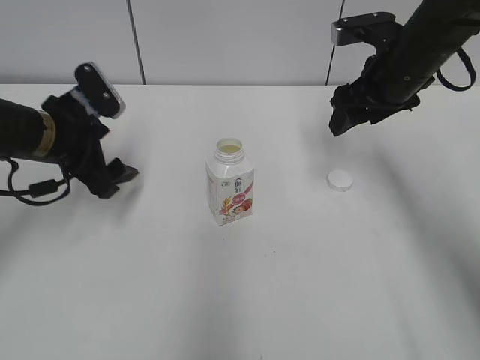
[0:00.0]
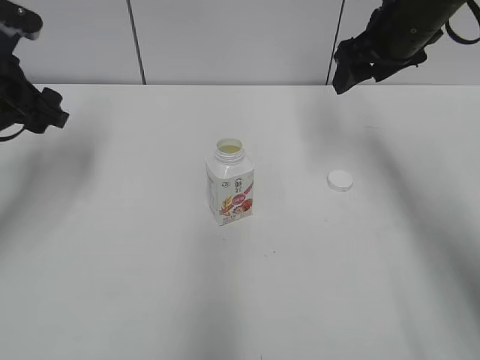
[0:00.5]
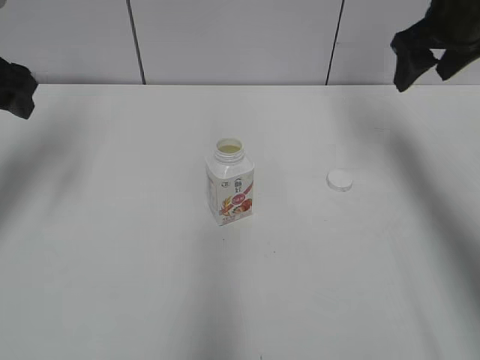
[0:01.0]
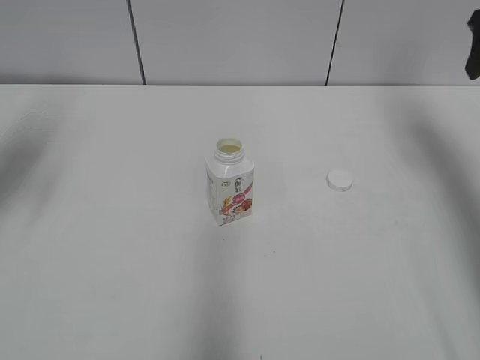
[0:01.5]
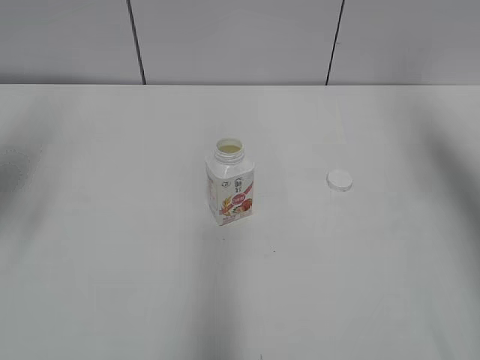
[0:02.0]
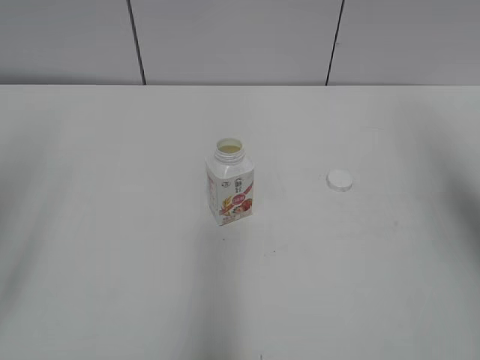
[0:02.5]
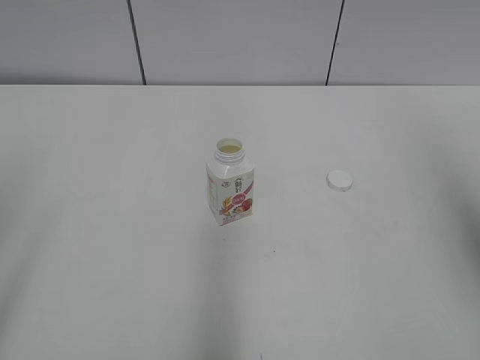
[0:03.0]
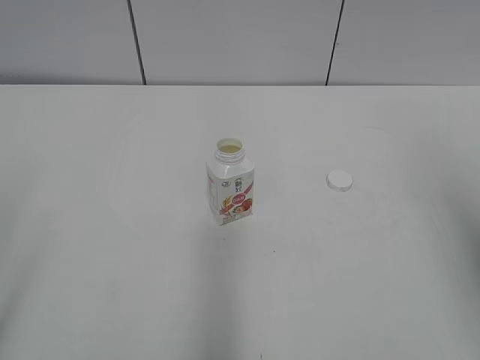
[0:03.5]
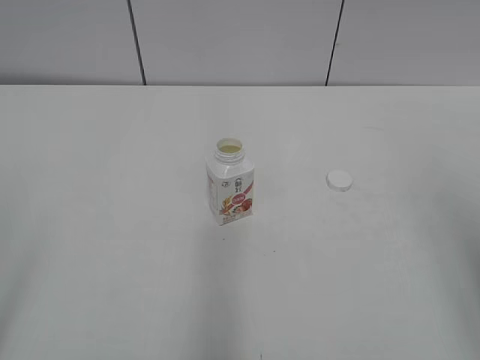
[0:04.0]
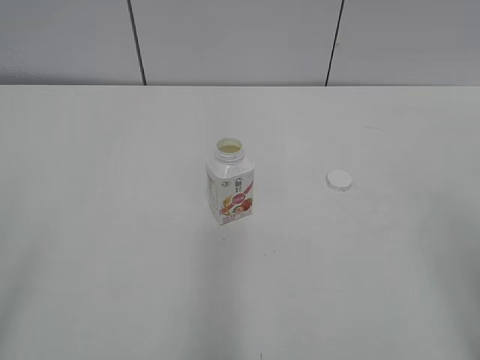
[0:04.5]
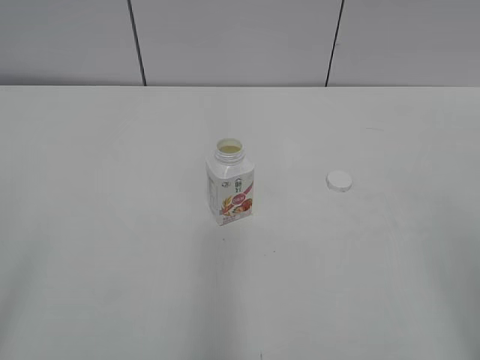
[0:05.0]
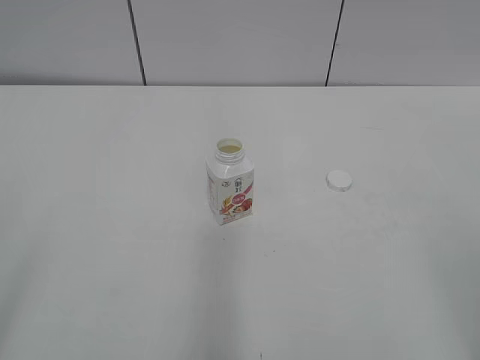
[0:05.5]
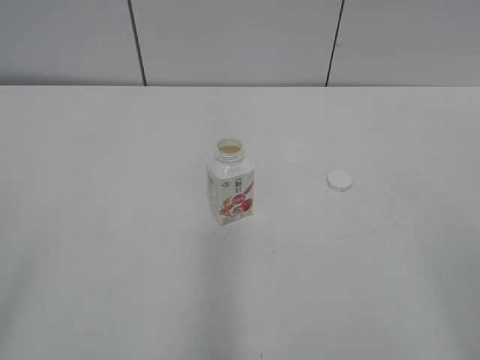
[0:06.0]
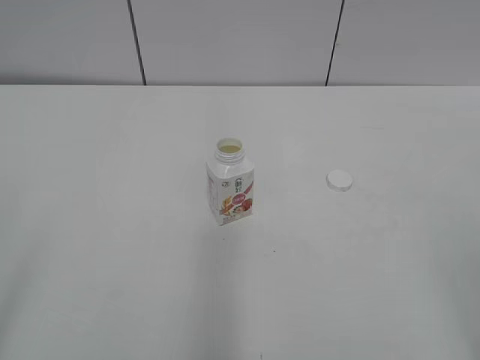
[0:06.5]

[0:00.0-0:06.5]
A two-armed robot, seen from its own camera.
0:00.0 to 0:02.0: The right gripper is displaced upward, to the right and backward by some 20 cm, while the left gripper is displaced upward and to the left by approximately 20 cm.
0:02.0 to 0:04.5: The two grippers go roughly 30 cm backward.

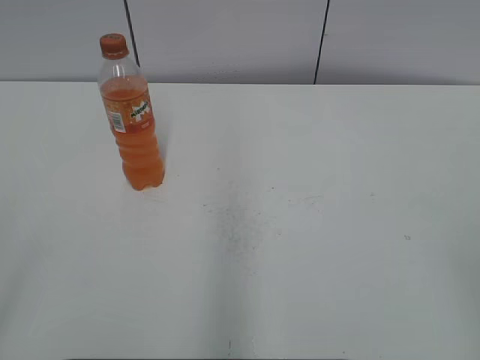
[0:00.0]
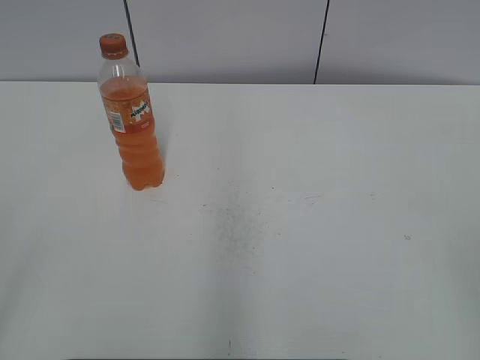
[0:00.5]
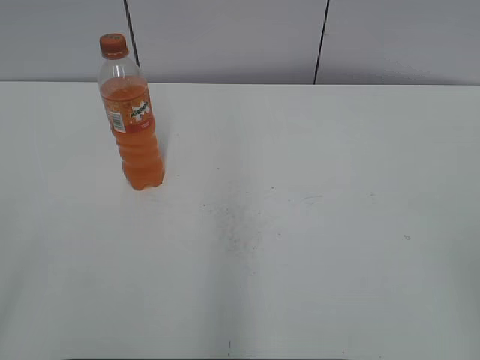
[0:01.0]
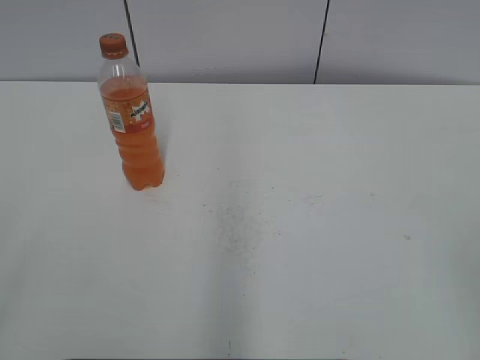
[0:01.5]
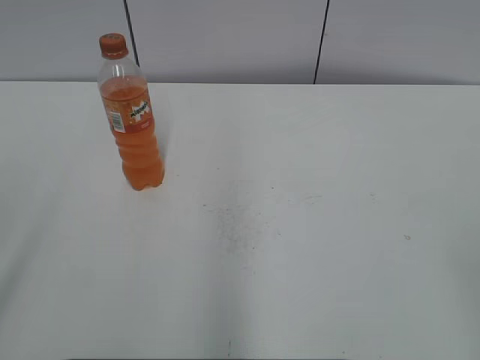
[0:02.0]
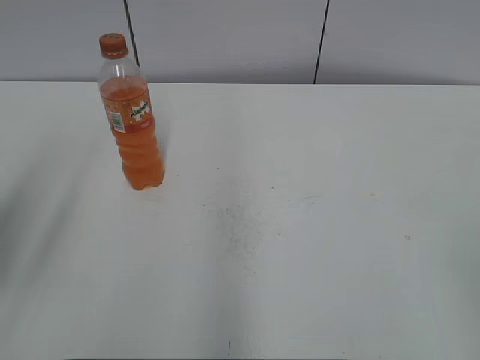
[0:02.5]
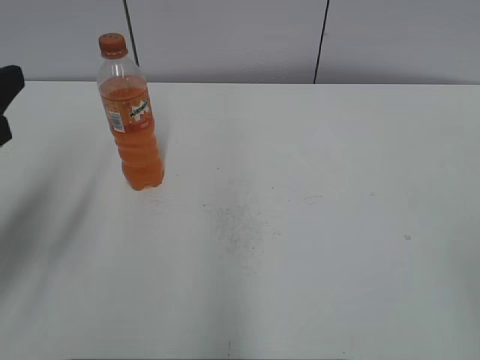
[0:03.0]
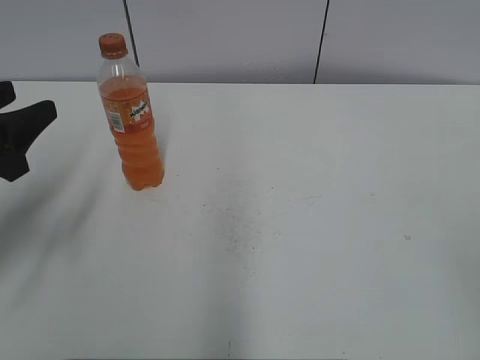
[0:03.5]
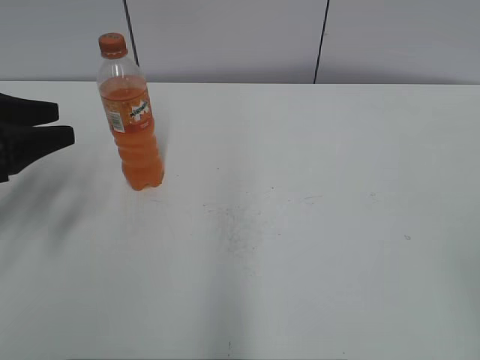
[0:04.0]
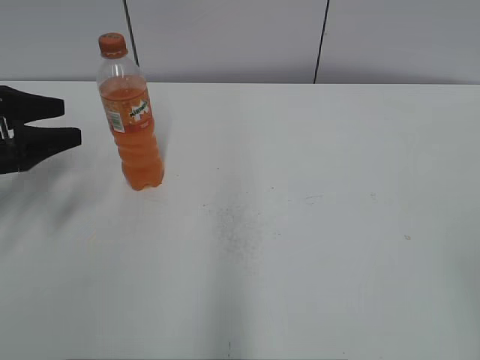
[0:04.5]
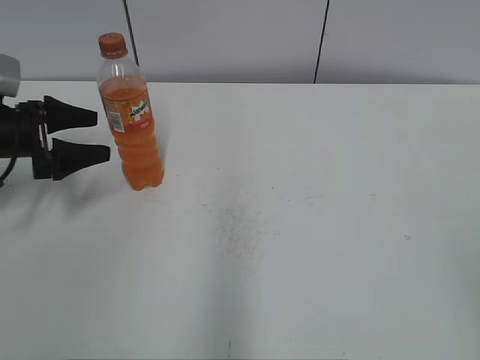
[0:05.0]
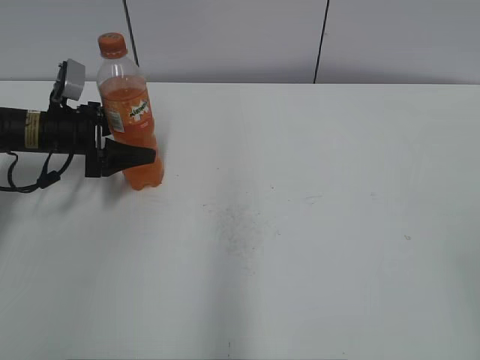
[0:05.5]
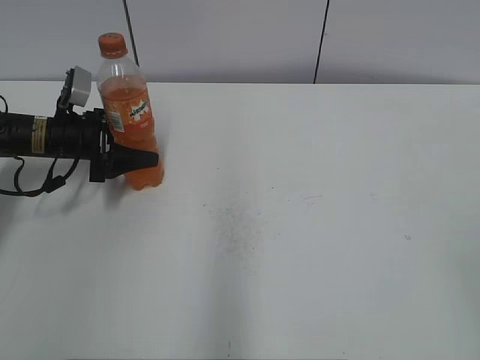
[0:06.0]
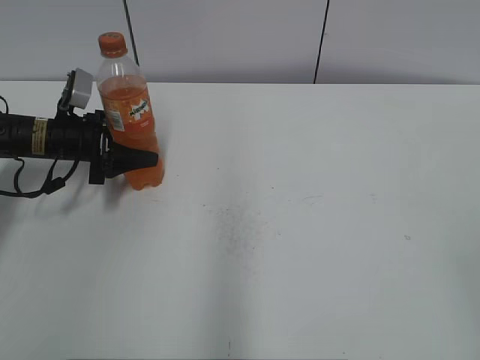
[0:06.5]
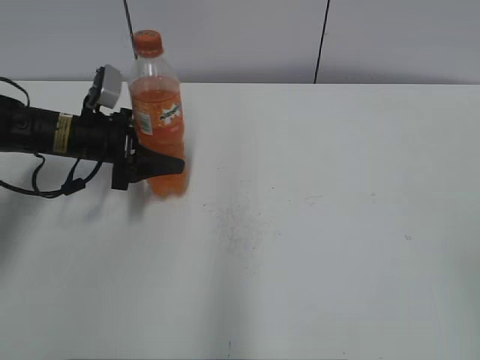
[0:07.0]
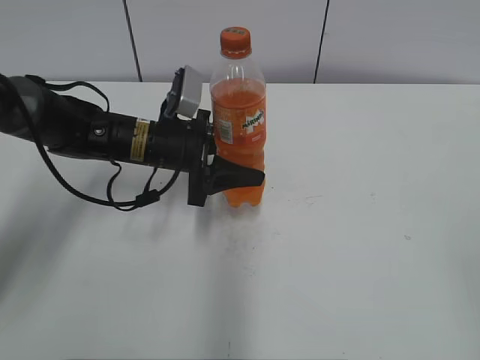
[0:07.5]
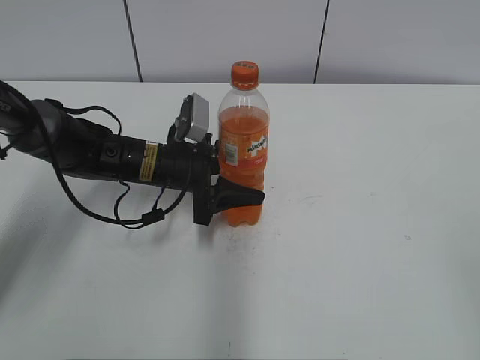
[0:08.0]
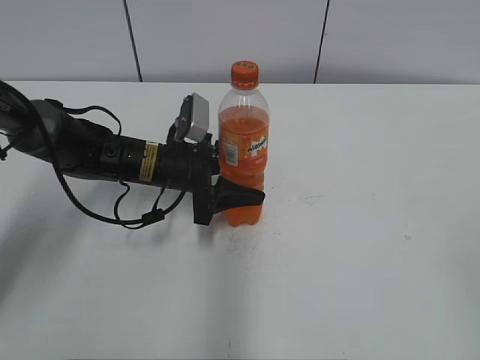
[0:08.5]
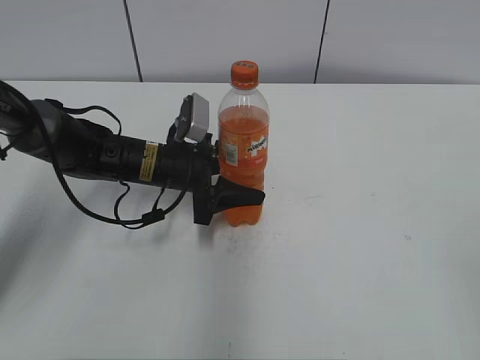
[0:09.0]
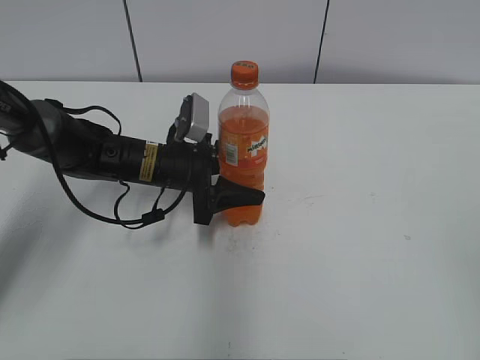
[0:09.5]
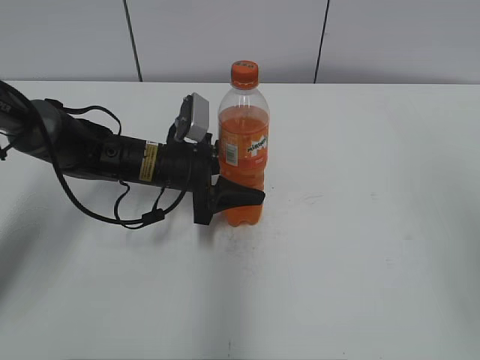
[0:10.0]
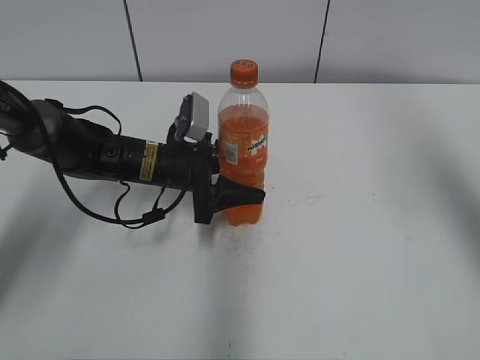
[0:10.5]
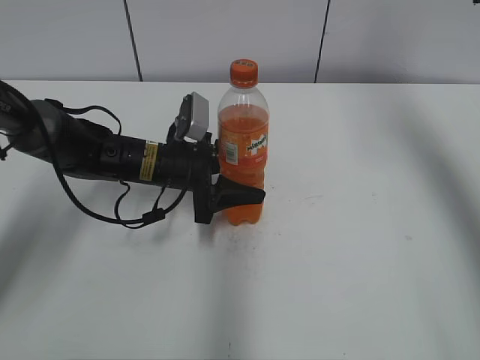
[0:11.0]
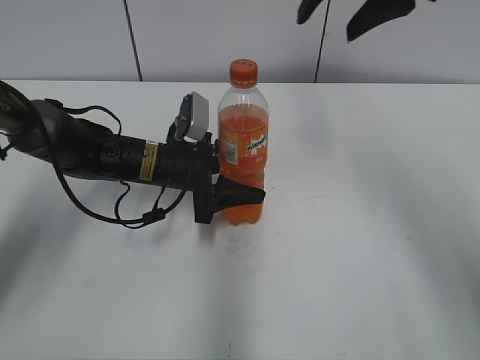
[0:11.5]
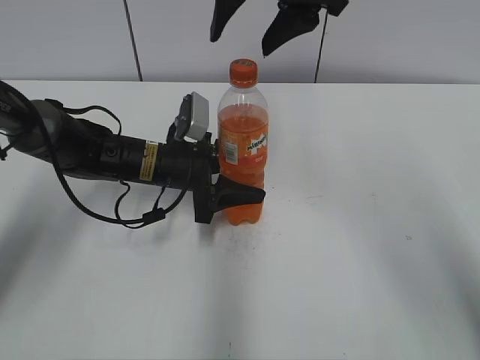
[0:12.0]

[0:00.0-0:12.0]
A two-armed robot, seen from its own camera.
Step, 0:00.0 to 0:06.0: Grab the Mirinda with the left hand.
Step, 0:06.5 to 0:08.0: Move the Mirinda from left to right.
0:02.0 to 0:04.0: The left gripper travels forward and downward by approximately 30 cm.
0:04.0 to 0:06.0: The left gripper moves forward, downward and to the right, roughly 15 cm, and opens, then closes once more.
0:06.0 to 0:08.0: The left gripper shifts roughly 15 cm to the right, and closes its fingers.
0:10.0 to 0:12.0: The right gripper shifts approximately 35 cm forward and to the left.

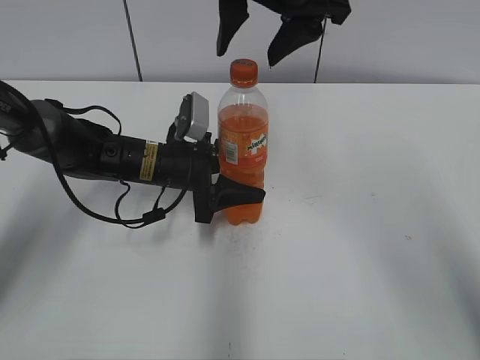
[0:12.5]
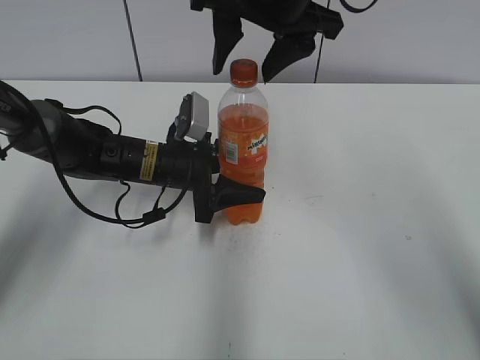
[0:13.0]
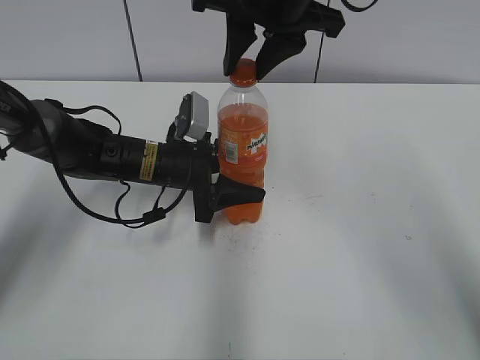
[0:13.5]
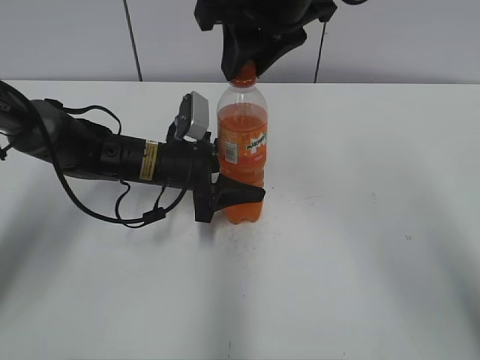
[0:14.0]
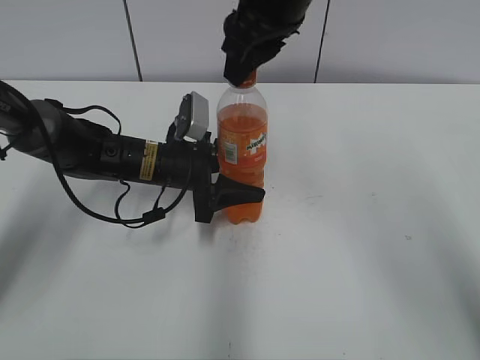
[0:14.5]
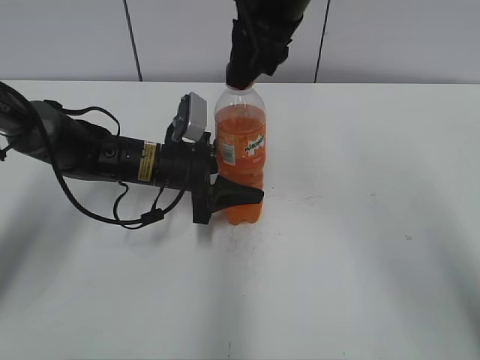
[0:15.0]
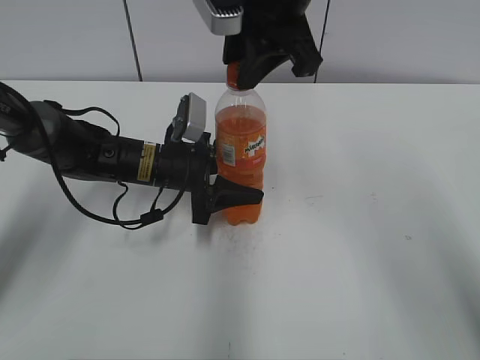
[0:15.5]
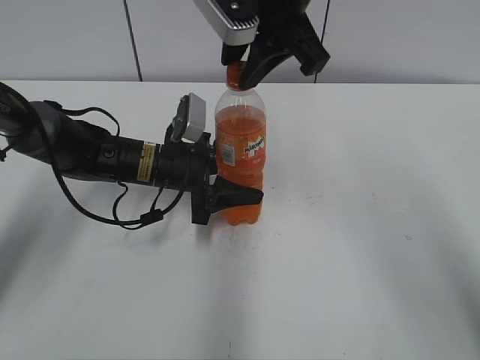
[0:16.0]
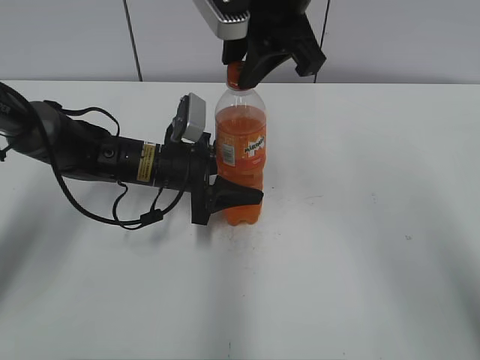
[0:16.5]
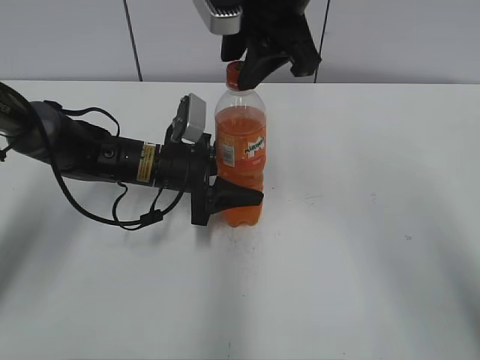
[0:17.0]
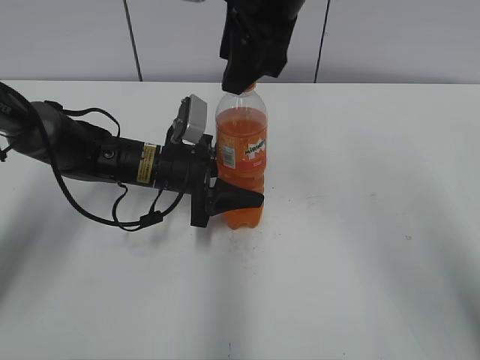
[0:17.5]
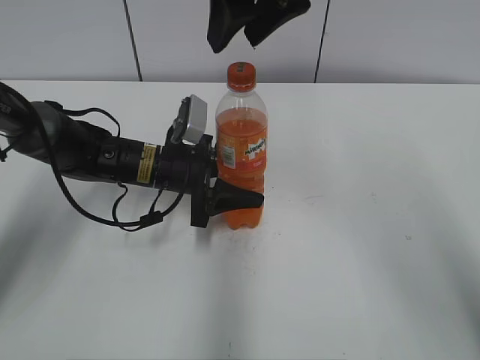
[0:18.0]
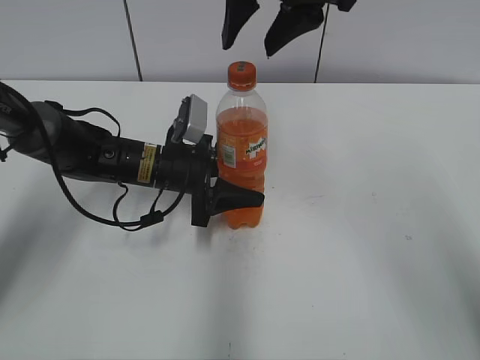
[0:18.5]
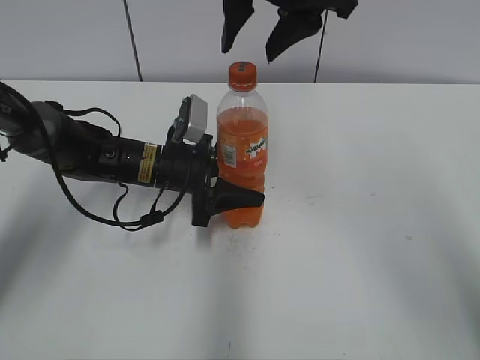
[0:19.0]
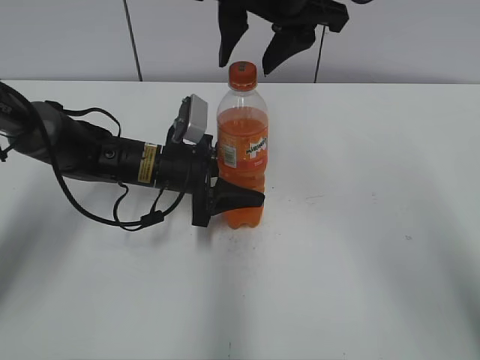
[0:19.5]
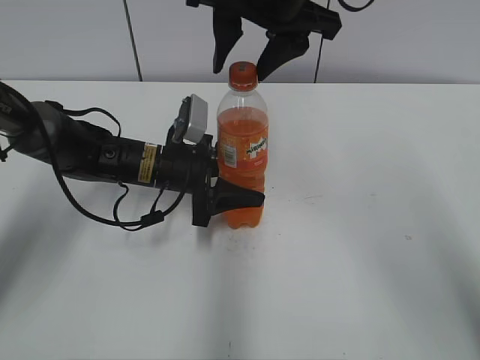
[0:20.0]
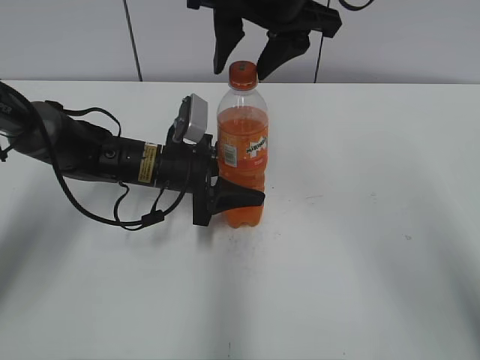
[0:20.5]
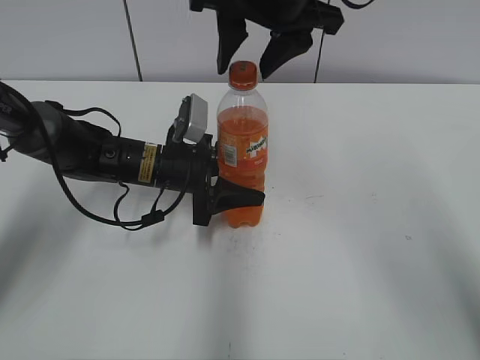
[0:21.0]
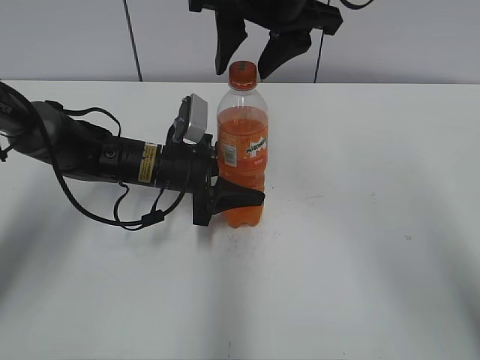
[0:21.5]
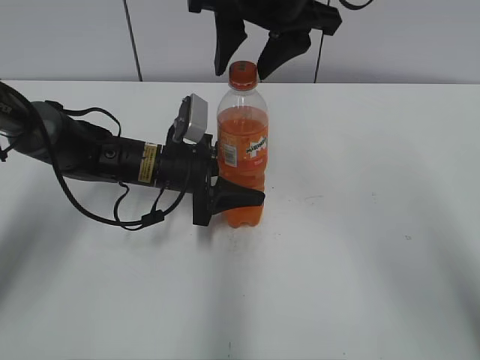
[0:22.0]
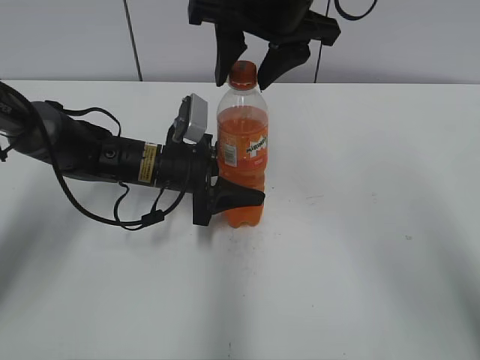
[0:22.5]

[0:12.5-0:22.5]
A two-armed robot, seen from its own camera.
0:12.5 to 0:14.5: The right gripper closes.
0:16.5 to 0:18.5: The right gripper opens its fingers.
0:18.5 to 0:20.5: The grippers stay close to where they were, moving slightly.
0:20.5 to 0:22.5: Both grippers stay put.
